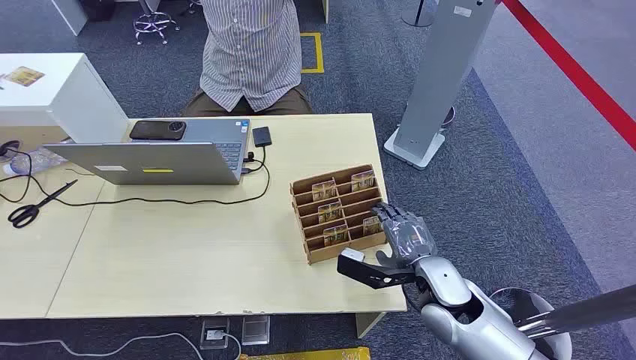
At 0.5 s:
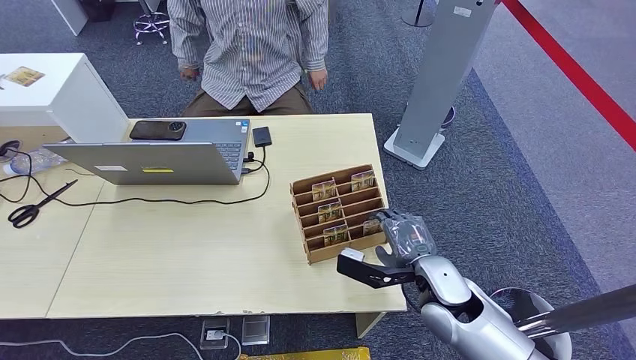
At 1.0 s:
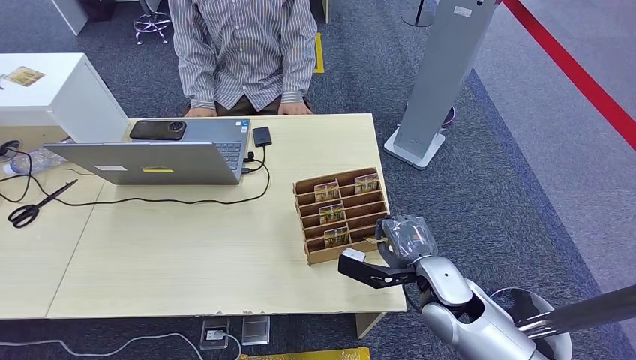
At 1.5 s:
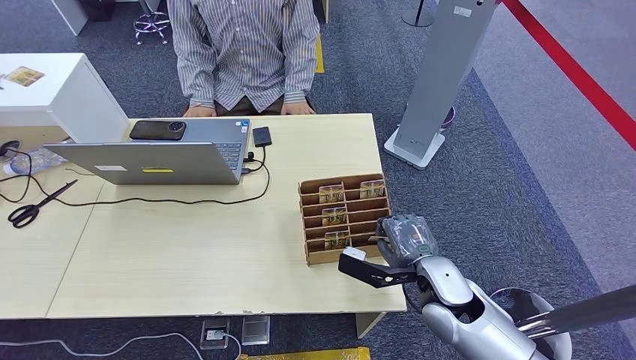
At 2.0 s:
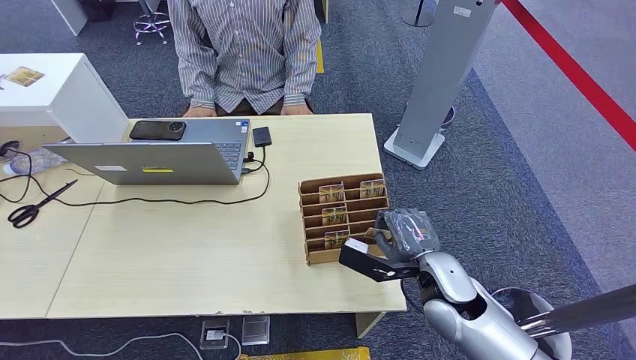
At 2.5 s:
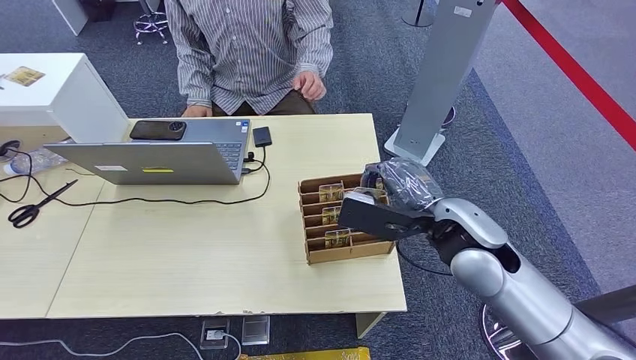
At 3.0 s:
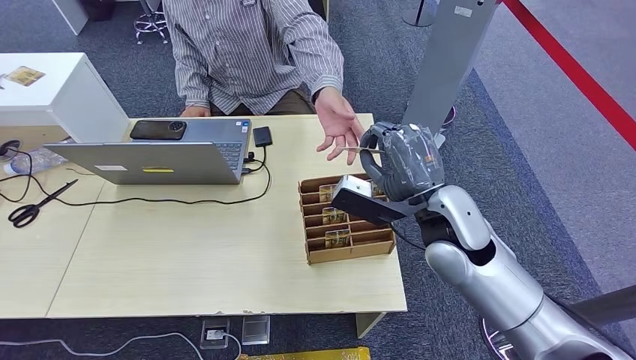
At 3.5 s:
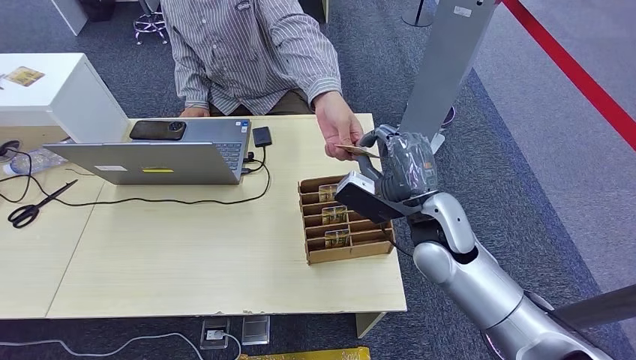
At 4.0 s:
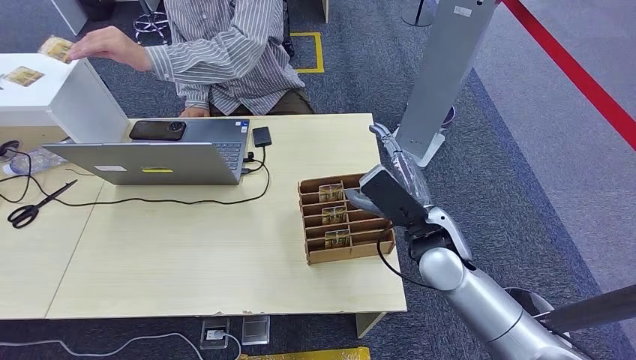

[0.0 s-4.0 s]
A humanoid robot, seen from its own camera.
Step, 0.0 to 2.0 s: Pick up the key card from the card box.
Step, 3.5 to 4.0 s: Hand the key card to the target.
2.0 to 4.0 s: The right hand shifts approximately 10 cm upward and forward.
